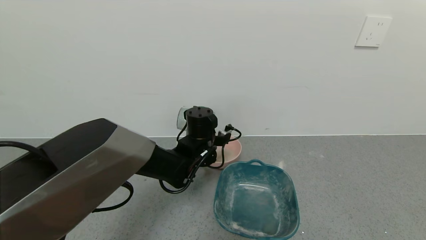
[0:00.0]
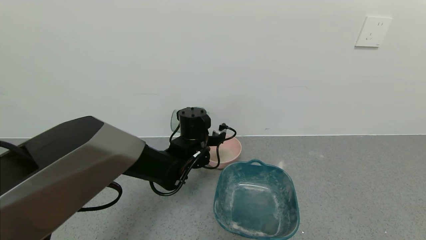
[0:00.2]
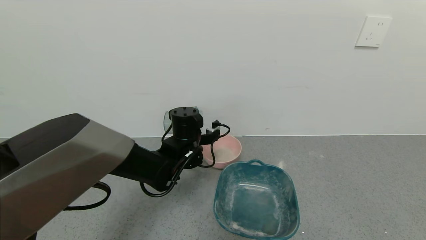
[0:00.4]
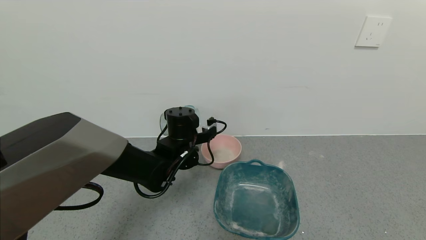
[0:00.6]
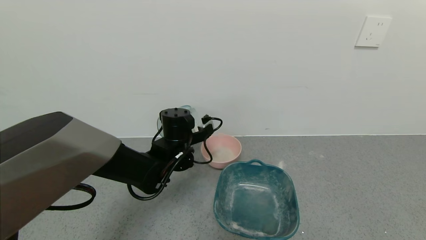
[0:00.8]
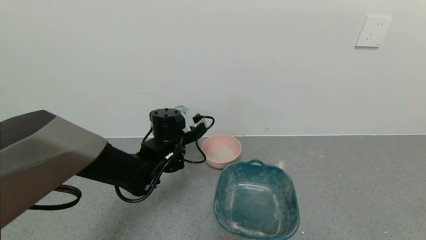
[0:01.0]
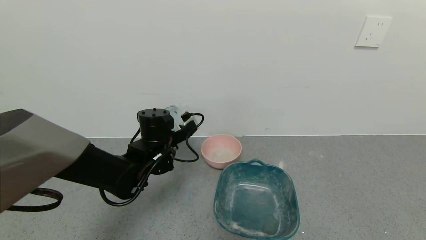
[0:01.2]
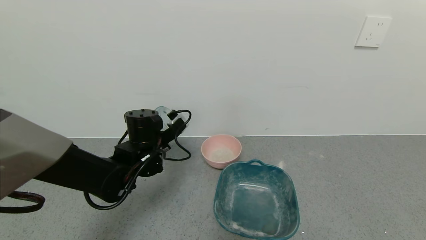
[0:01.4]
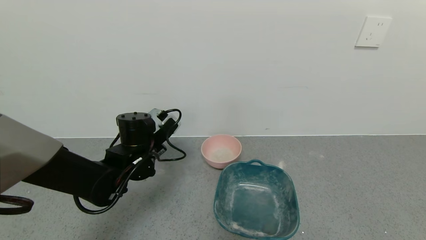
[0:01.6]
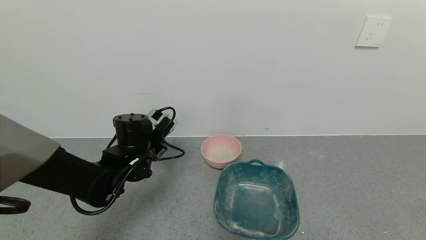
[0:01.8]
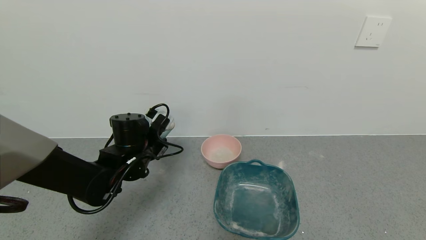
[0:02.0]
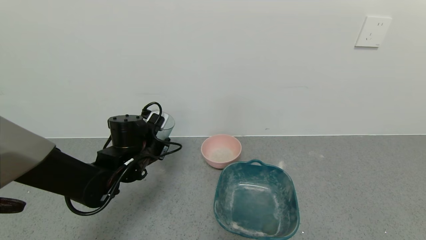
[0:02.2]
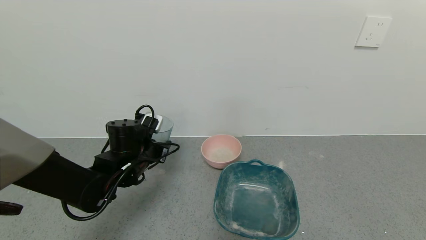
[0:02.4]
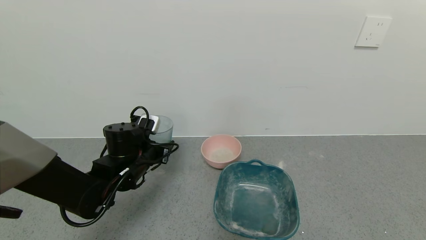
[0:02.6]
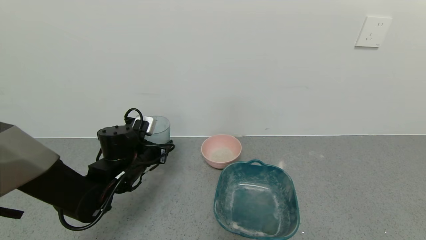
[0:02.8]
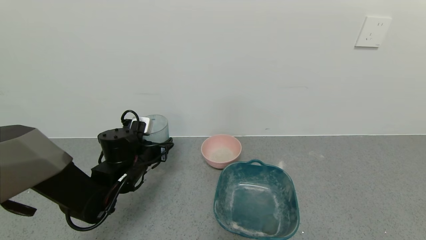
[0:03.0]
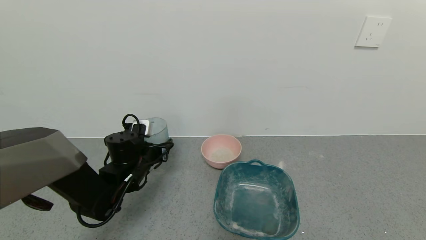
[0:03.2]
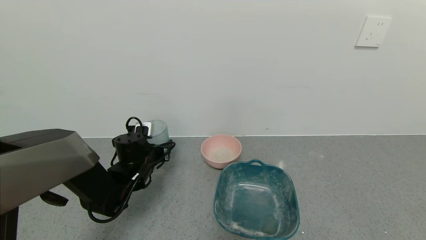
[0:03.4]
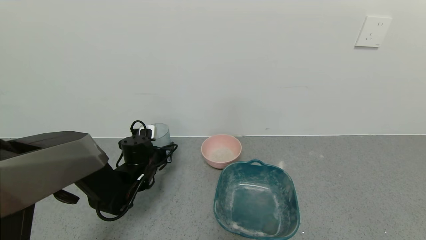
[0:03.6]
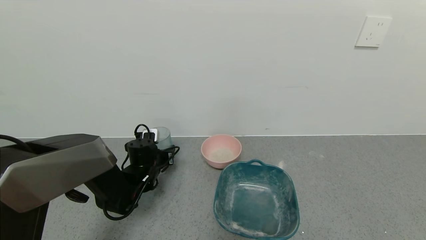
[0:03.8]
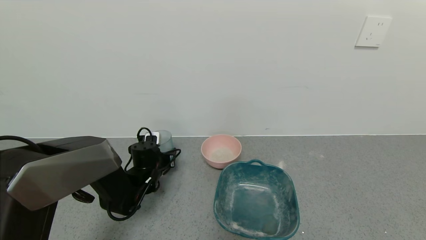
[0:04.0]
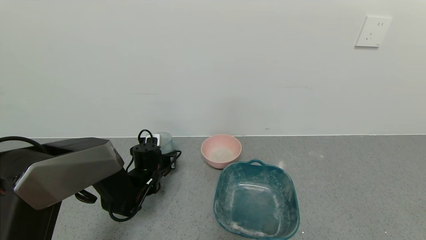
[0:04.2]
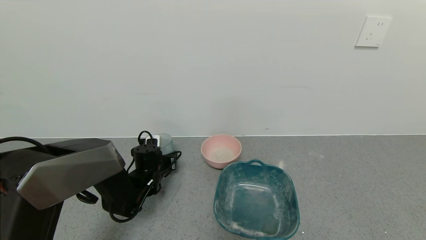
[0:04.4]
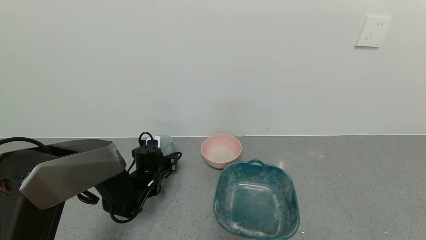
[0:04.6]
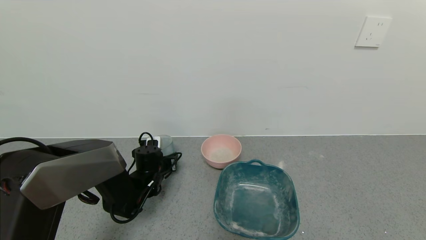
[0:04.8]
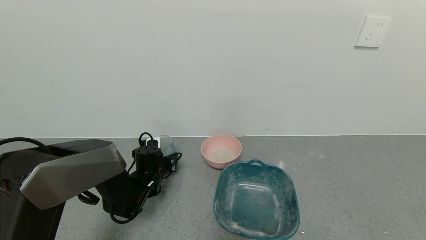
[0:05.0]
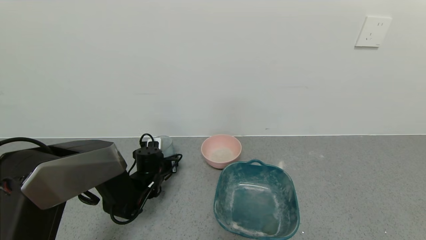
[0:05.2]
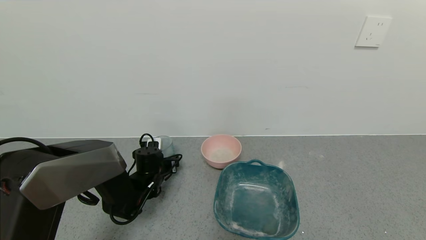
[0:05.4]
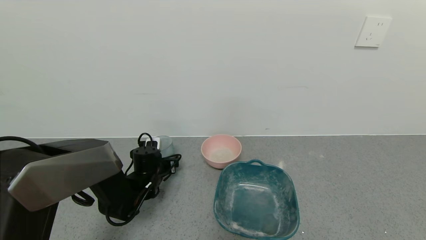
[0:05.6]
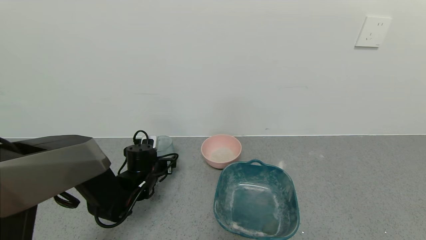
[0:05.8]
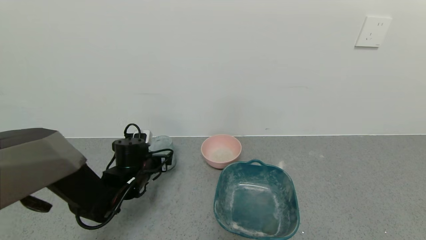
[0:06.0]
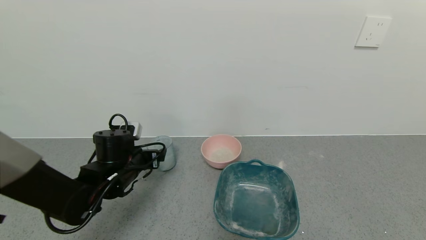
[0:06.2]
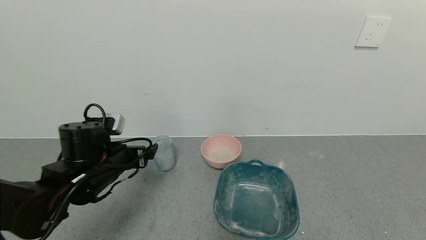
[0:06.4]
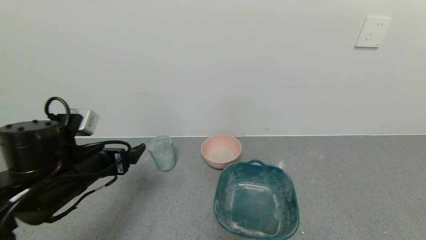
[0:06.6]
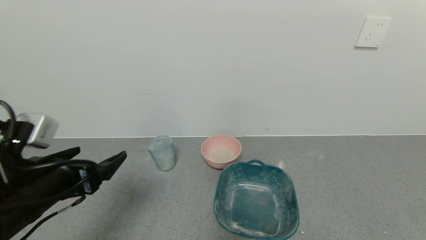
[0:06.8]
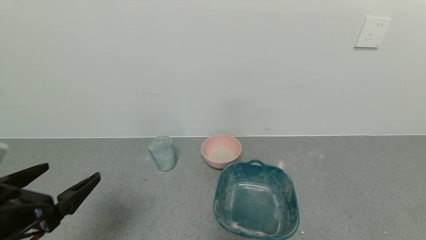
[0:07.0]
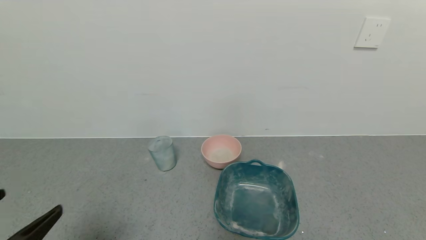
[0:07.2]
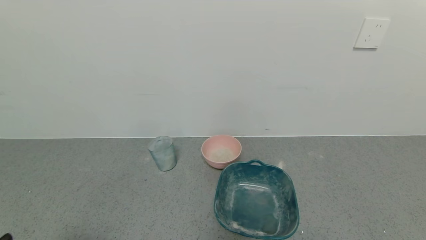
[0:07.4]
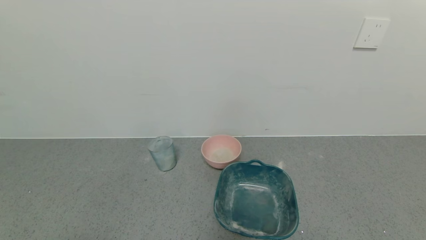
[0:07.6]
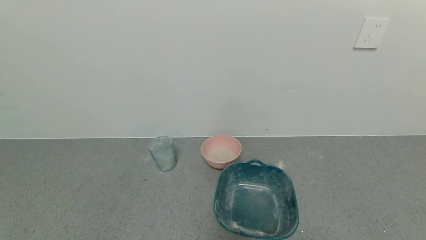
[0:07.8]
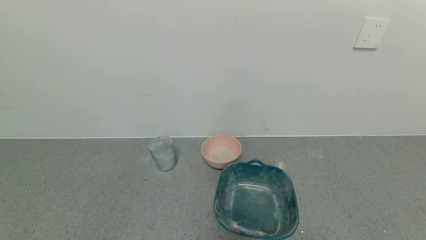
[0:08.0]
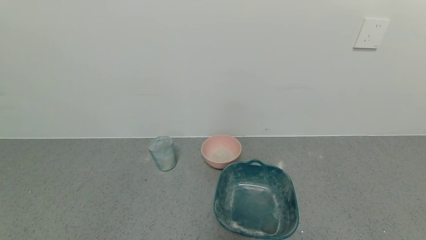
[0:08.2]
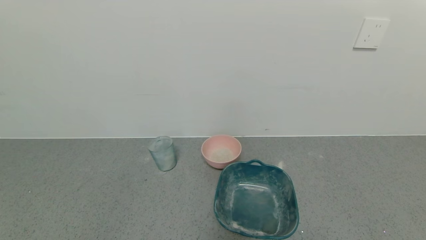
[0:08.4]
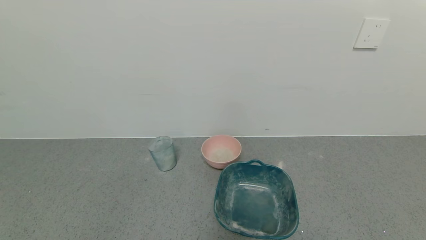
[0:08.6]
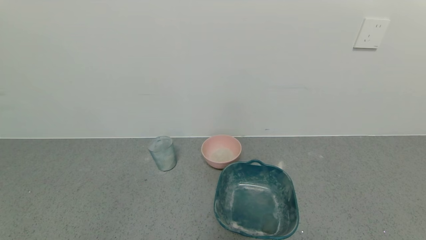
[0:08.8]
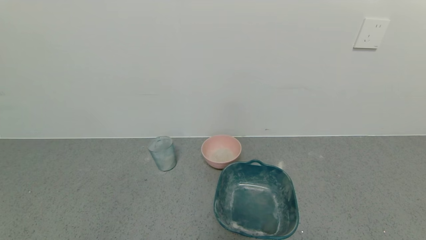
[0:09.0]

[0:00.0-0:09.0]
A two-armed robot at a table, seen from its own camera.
Task of the whole recording: use a gripper to pick up the cup and pour the powder into a bowl or tray.
Step, 0:00.8 to 0:06.0: Place the glass cup down with the left gripper.
0:00.0 to 0:01.6: The left gripper travels to the left by roughly 10 cm.
0:03.0 to 0:04.4: The left gripper travels downward by approximately 10 cm.
0:04.4 to 0:06.0: The left gripper travels upward by some 5 cm, and opens.
0:06.0 to 0:07.6: The left gripper travels backward by some 35 cm.

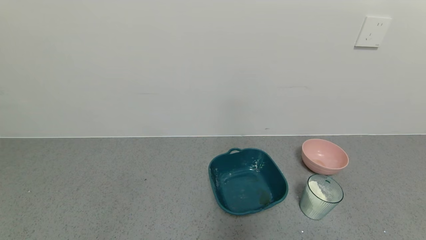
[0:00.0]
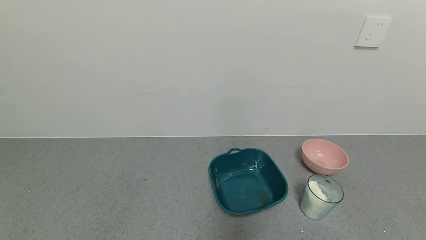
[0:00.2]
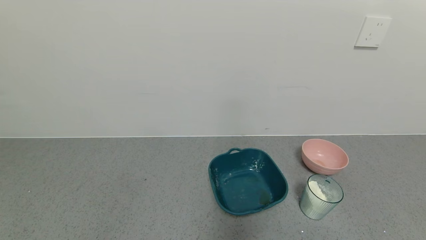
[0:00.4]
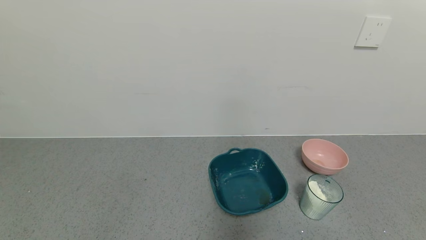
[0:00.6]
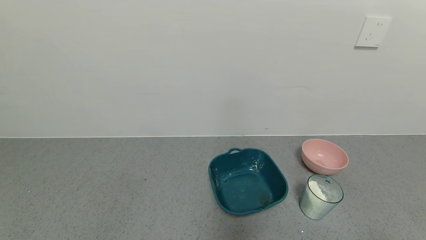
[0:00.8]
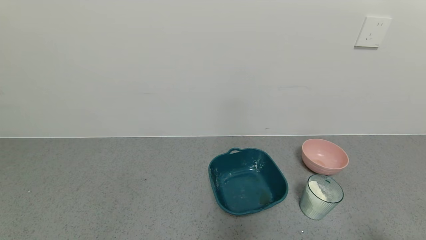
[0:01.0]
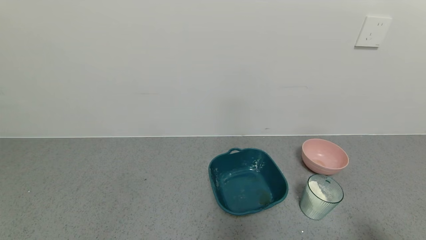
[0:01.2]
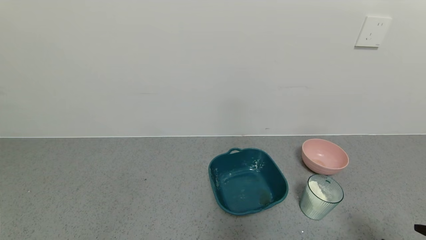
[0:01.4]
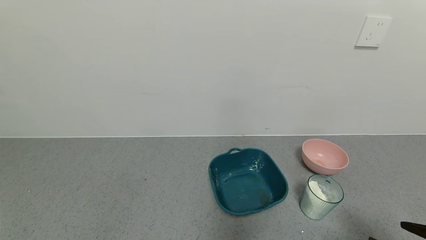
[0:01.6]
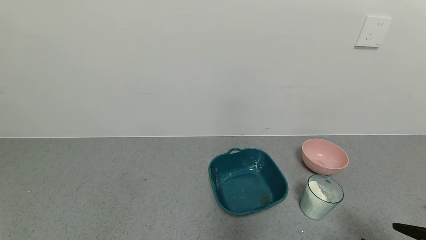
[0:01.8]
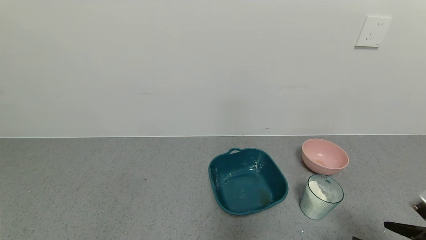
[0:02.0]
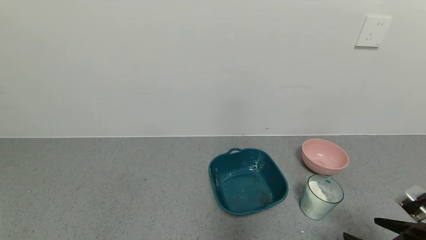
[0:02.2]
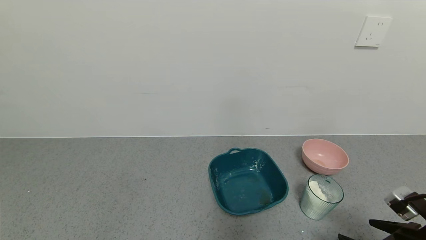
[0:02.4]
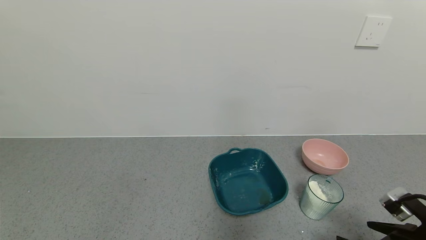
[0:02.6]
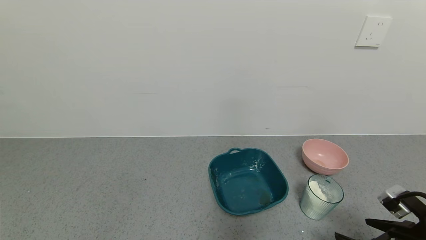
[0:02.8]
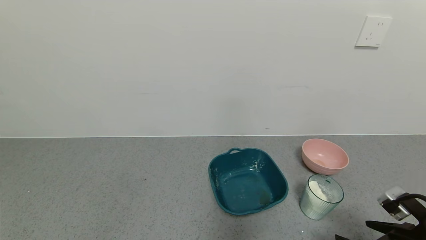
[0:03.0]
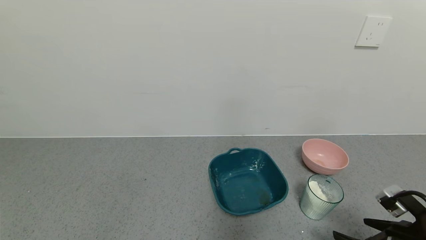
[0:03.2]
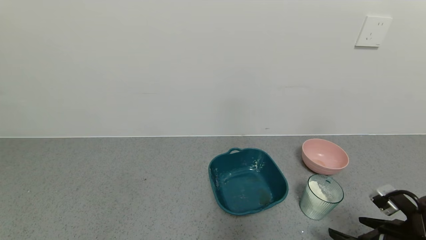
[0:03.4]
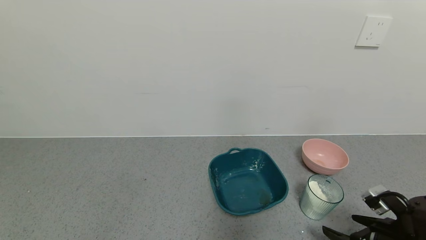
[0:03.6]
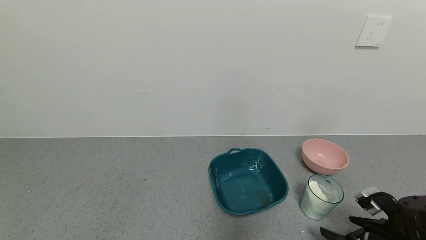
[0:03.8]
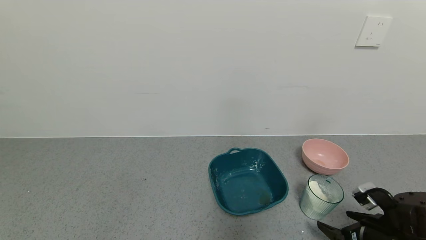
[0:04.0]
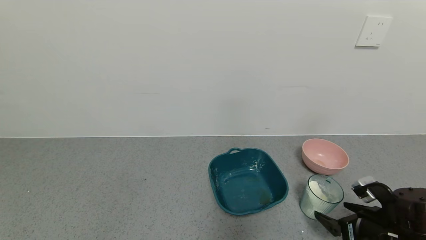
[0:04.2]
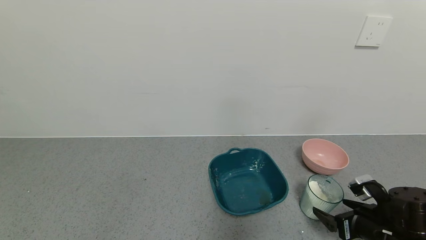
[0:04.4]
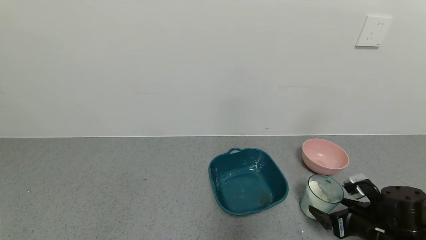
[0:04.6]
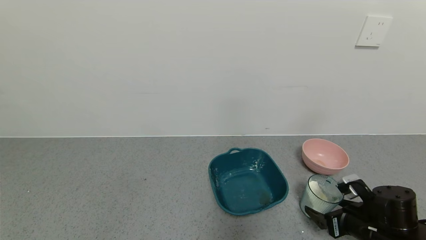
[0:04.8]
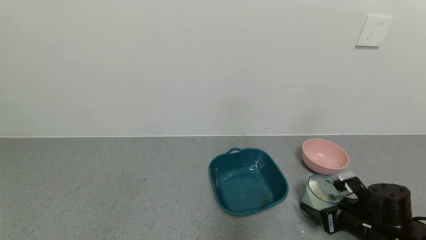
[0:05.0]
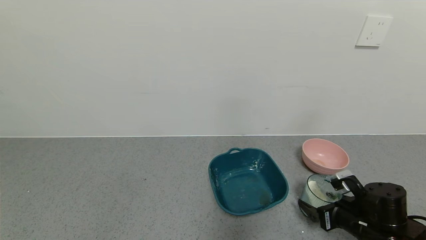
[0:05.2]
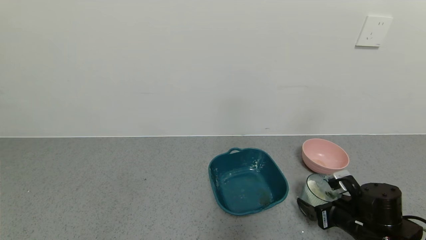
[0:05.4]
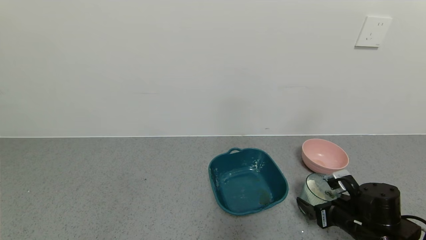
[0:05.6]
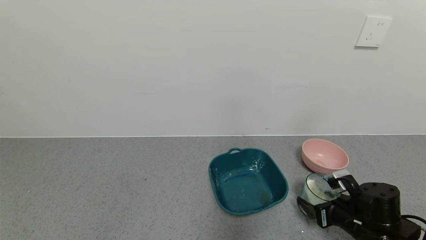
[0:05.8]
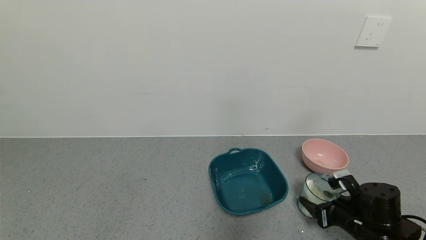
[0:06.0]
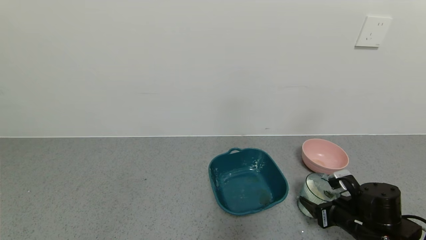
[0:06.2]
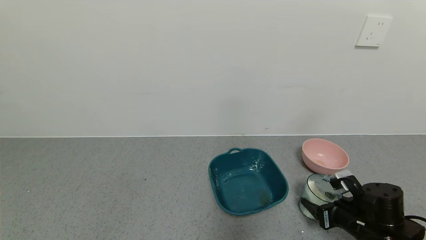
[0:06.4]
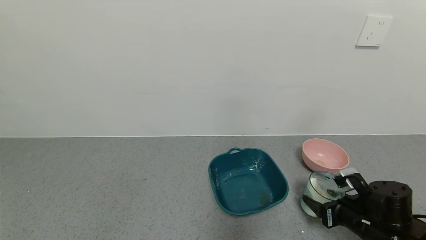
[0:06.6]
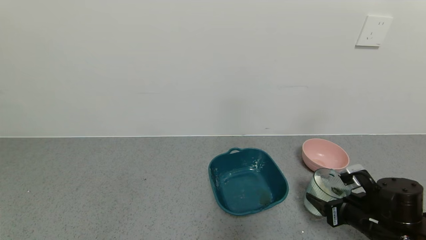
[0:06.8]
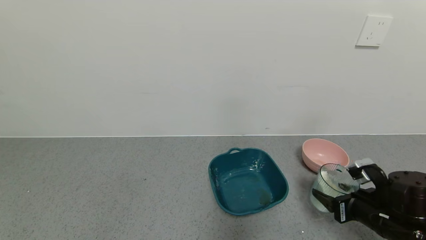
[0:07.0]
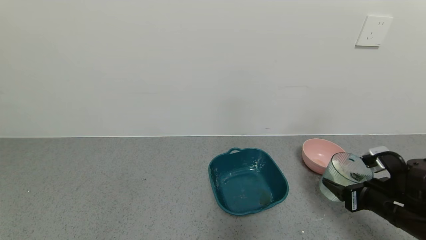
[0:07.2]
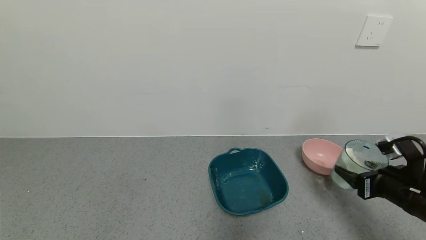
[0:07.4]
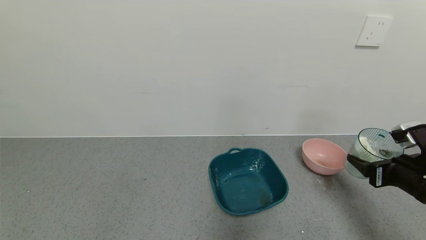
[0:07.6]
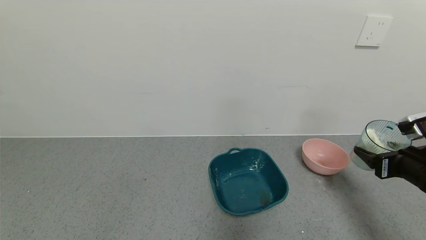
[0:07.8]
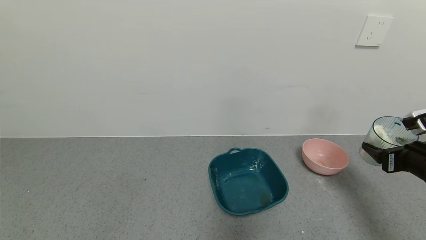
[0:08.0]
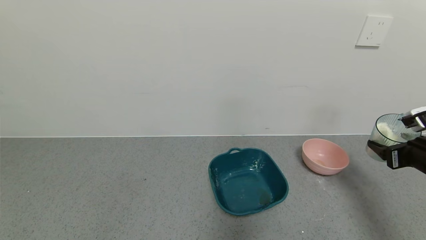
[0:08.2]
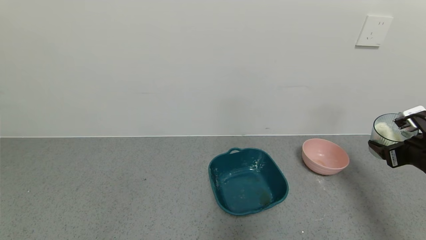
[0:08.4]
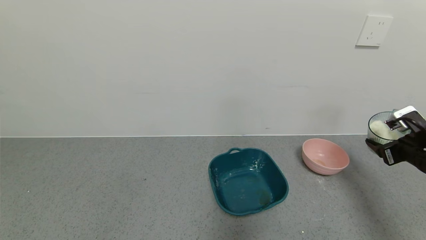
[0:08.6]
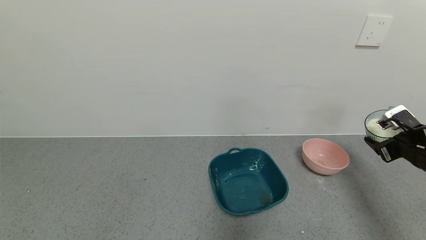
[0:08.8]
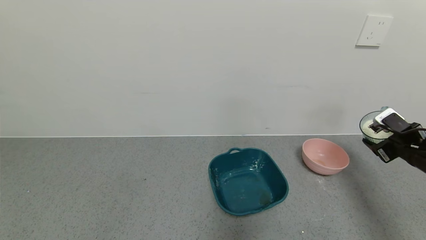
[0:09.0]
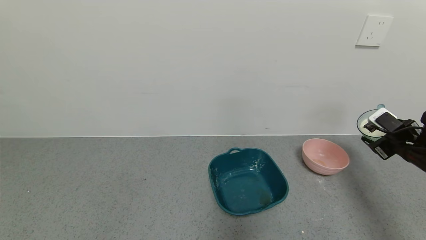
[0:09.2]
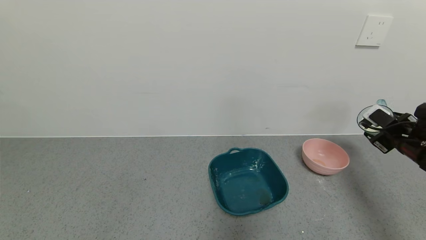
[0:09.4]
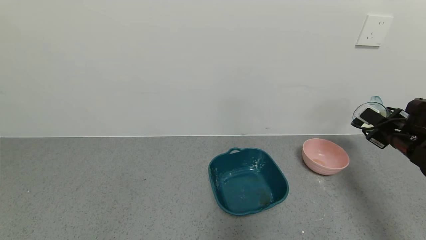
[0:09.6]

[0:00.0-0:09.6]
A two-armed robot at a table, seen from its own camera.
Task of the whole recording: use a gripper to pick up the cup and pour the powder into a bowl or tray.
Step, 0:00.0 to 0:07.0: Pick up blue cup filled with milk powder with right gripper.
0:00.0 to 0:01.6: The right gripper shifts roughly 15 cm forward and upward.
0:01.6 to 0:03.2: The right gripper goes approximately 5 cm forward.
0:03.2 to 0:04.8: The right gripper is displaced forward and downward by roughly 10 cm.
0:04.8 to 0:06.4: The right gripper closes up.
0:06.4 to 0:08.0: The right gripper is displaced upward and to the right by roughly 15 cm.
0:08.0 to 0:09.6: The right gripper shifts about 10 cm forward.
